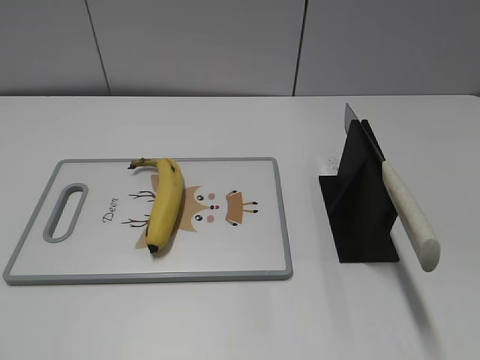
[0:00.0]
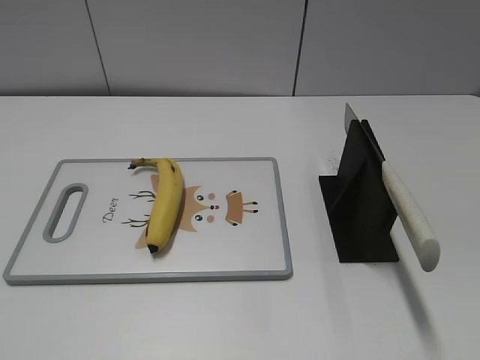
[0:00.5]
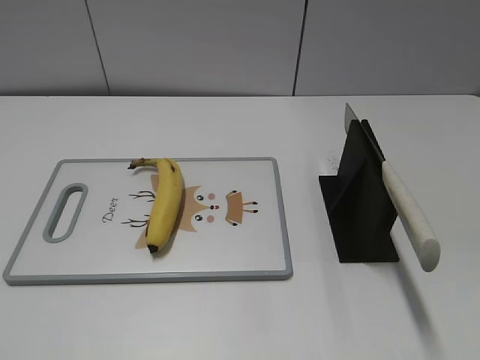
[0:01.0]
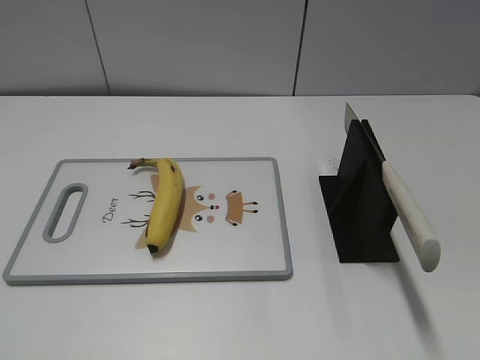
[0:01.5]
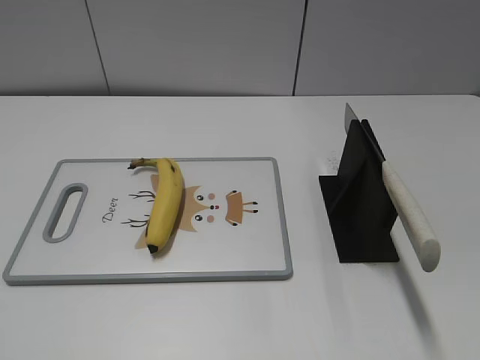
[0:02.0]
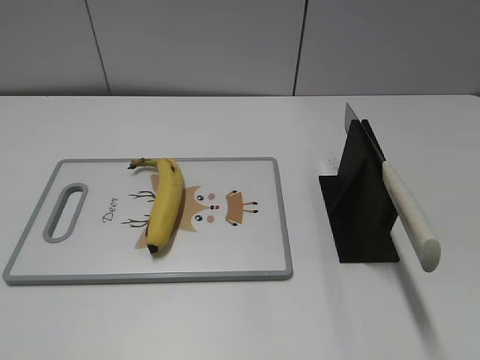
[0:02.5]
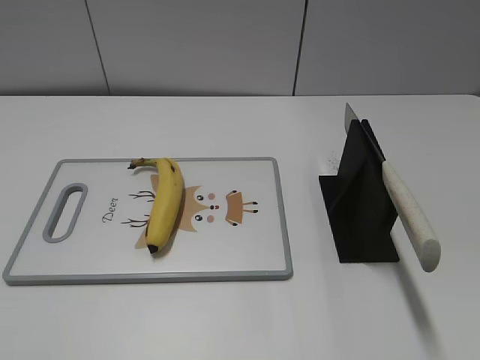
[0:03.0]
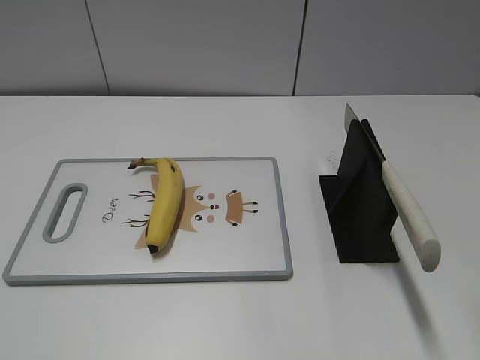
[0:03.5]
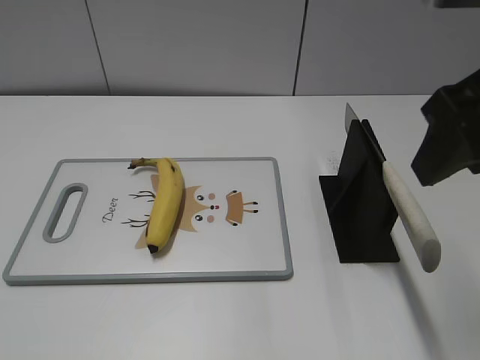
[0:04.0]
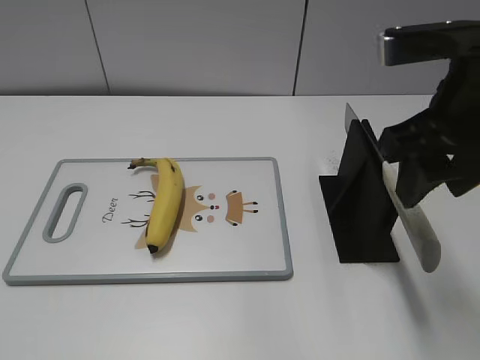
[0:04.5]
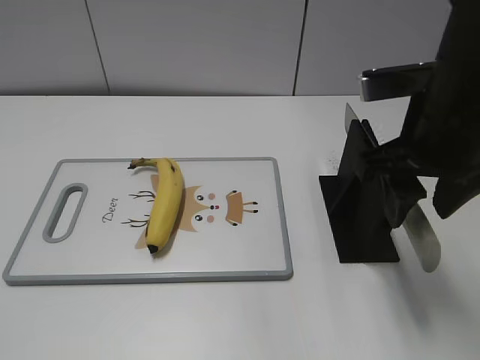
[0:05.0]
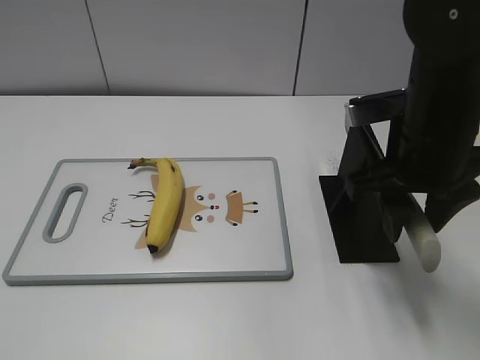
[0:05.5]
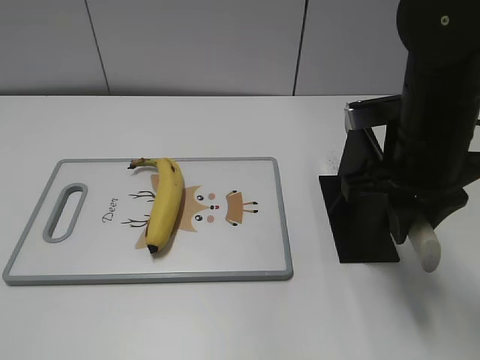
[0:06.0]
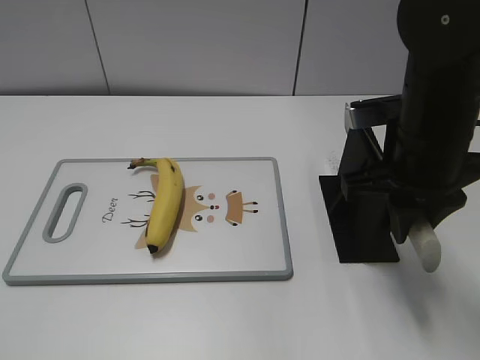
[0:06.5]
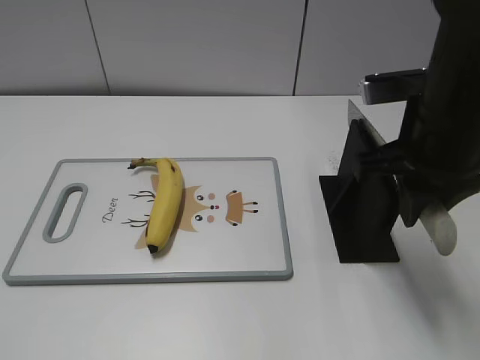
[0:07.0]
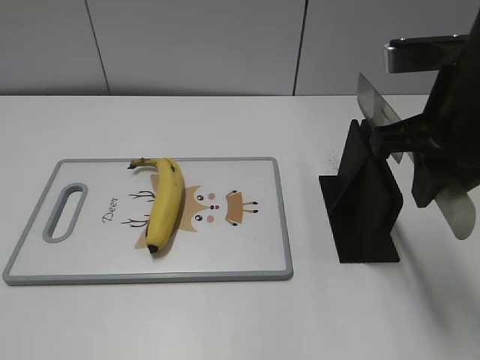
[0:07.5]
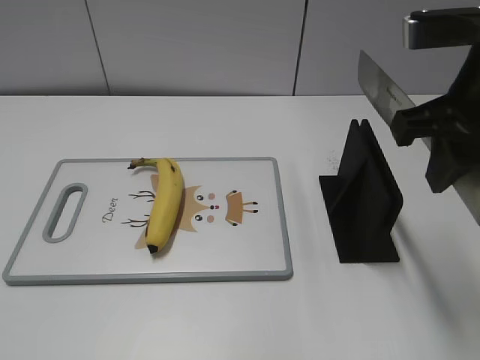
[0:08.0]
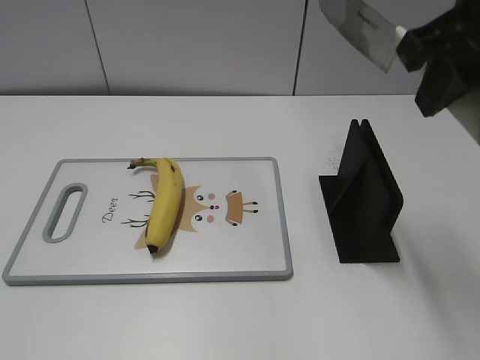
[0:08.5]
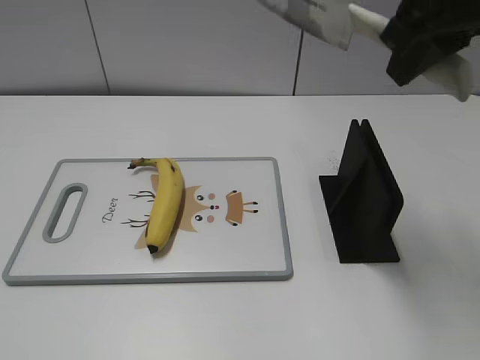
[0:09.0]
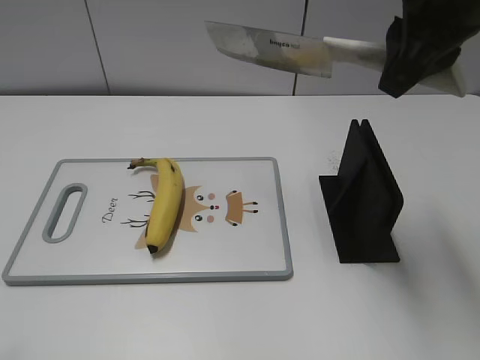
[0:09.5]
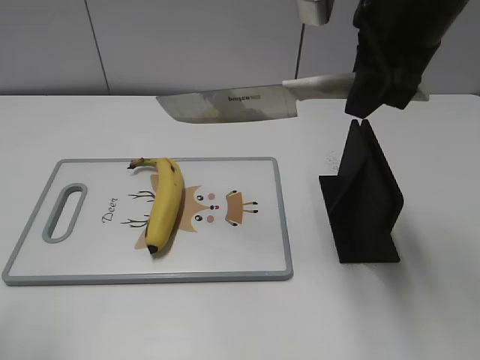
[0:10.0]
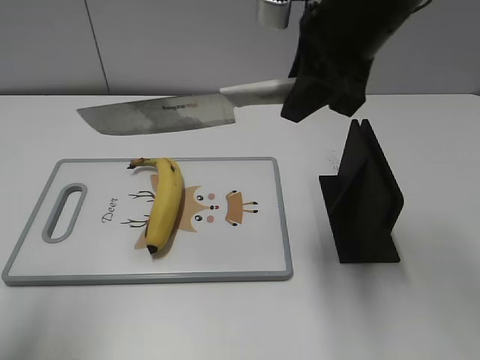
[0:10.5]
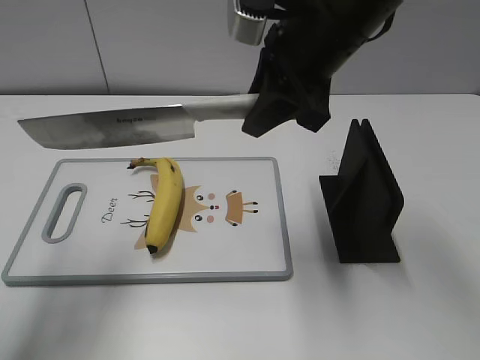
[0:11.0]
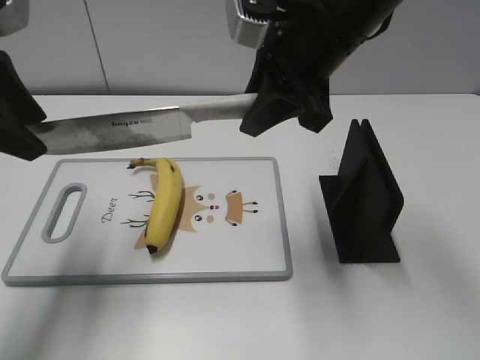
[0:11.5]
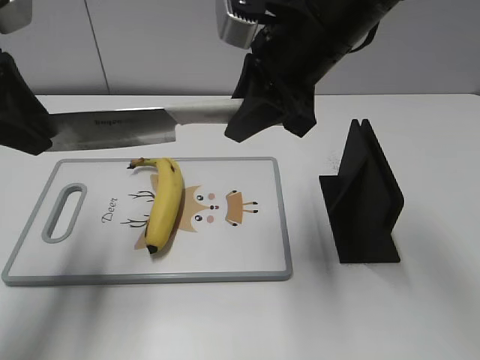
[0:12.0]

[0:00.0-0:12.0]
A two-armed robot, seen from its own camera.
Task of the whole recording: cut banana.
Step, 0:00.0 to 0:07.0: Grab the knife handle with your right hand.
0:02.0 to 0:04.0: The right gripper shifts approximately 20 cm forward and to the left.
0:04.0 to 0:06.0: The right gripper goes some 15 cm downward and forward, and closes.
0:06.0 to 0:08.0: The right gripper moves upward, roughly 10 cm.
0:08.0 to 0:10.0: The left gripper moves forward and upward, about 15 cm. The right gripper is displaced forward by approximately 5 cm.
0:10.0 to 0:12.0: The right gripper moves to the left, approximately 5 cm, while the left gripper goes approximately 15 cm forward.

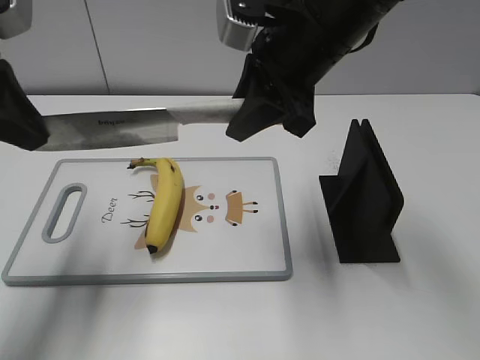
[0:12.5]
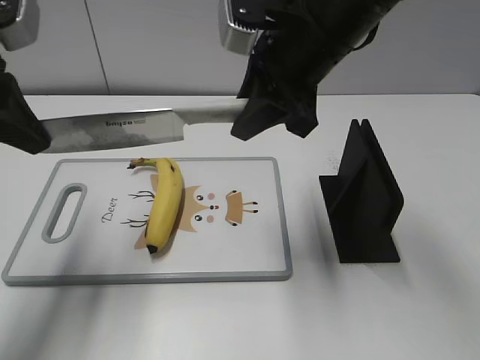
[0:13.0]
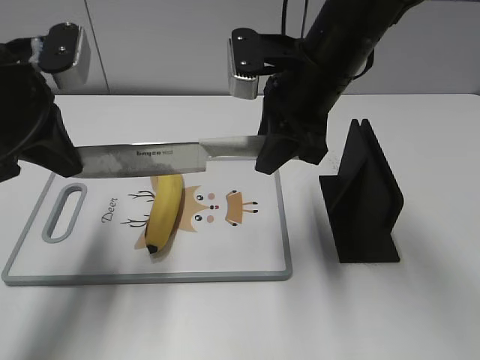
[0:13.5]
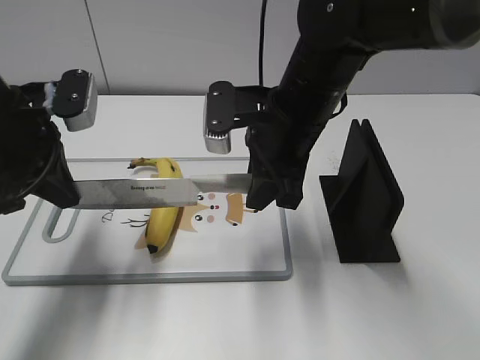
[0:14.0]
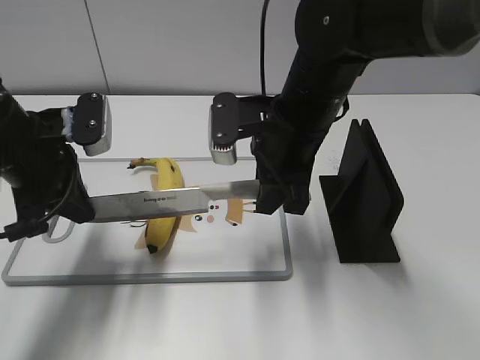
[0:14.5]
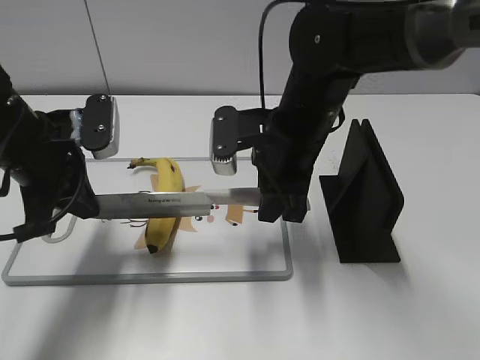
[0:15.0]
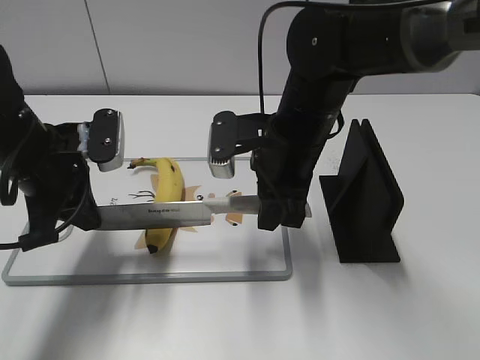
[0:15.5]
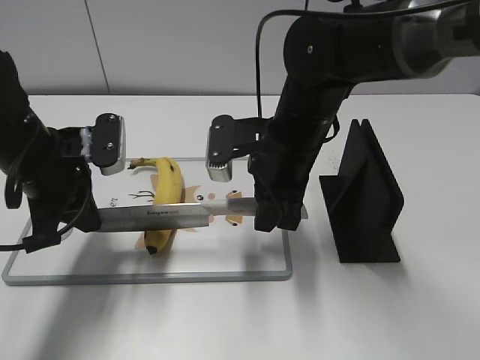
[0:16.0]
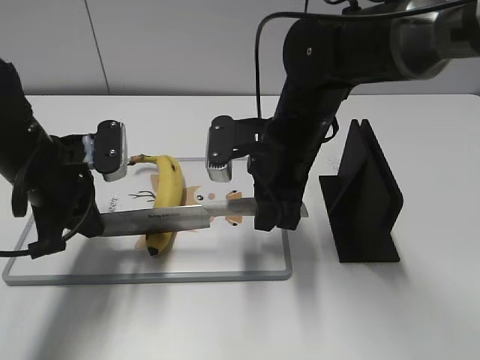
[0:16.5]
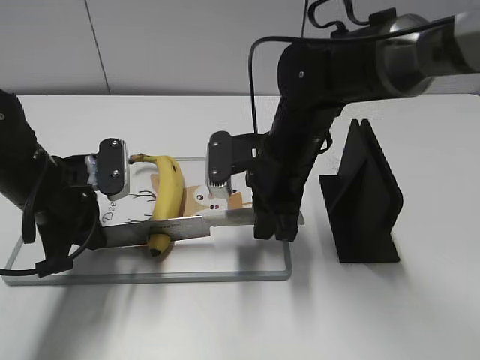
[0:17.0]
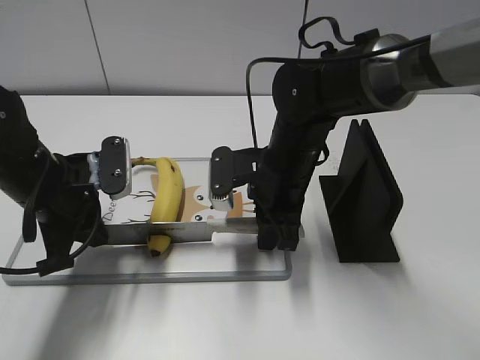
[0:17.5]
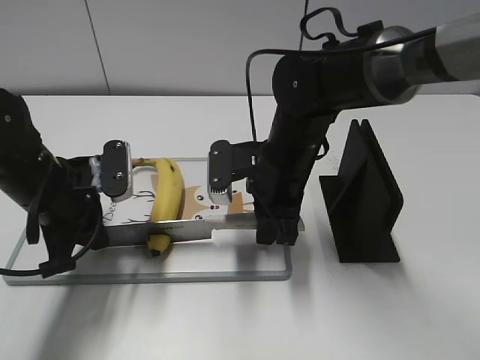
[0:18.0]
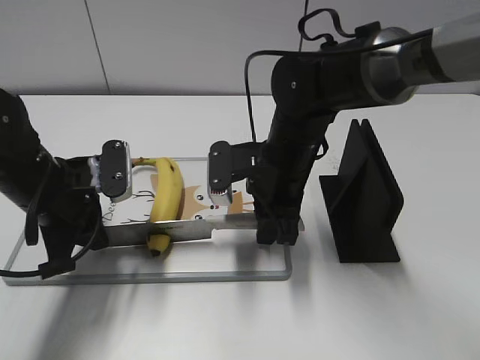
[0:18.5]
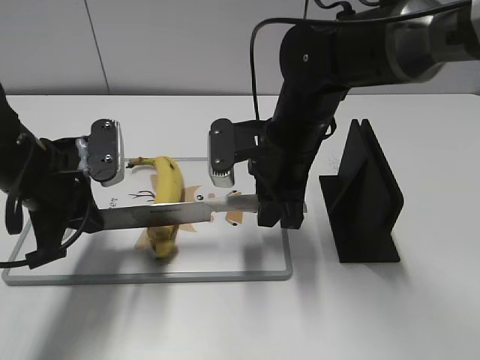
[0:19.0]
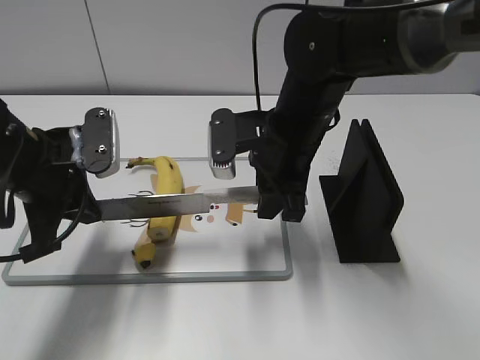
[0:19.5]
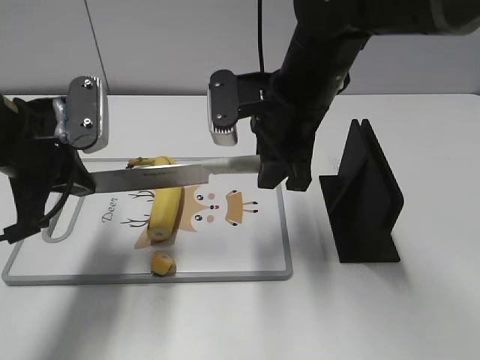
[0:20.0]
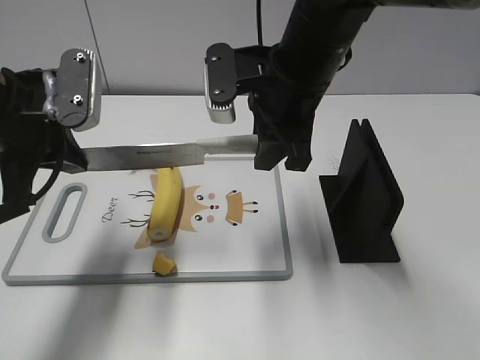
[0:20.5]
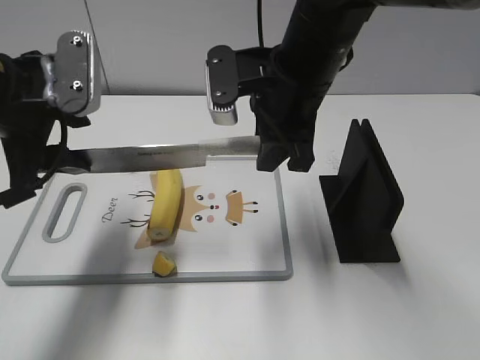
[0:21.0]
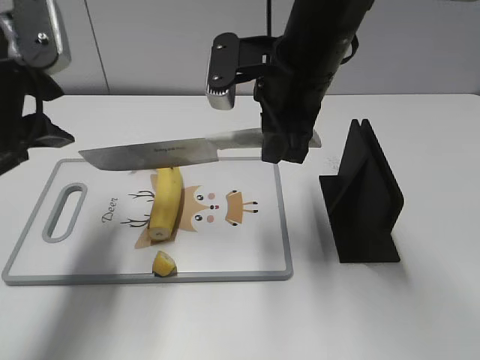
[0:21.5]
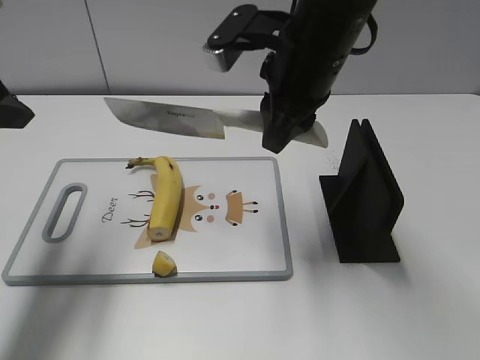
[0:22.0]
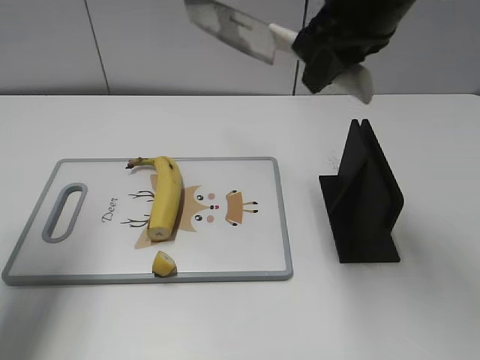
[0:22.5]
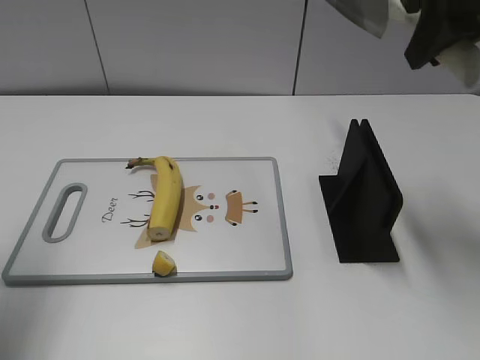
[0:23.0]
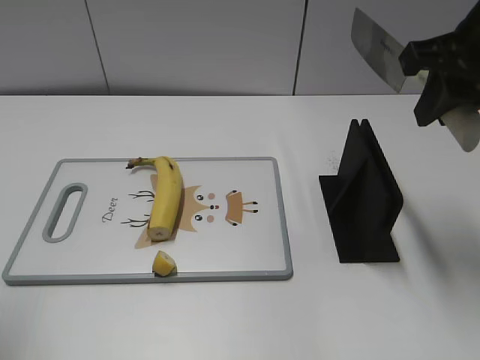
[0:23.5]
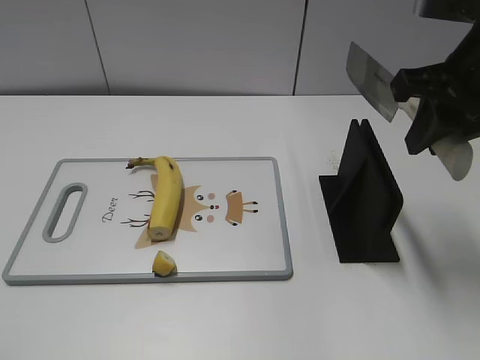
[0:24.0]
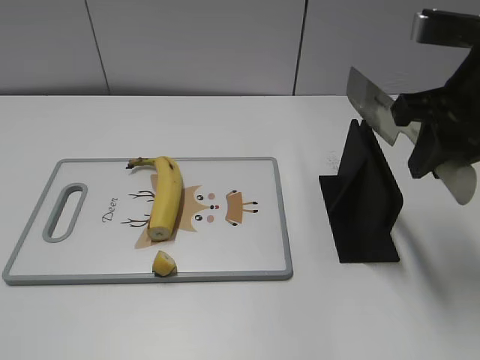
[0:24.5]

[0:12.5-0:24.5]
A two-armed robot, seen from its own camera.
Task of the whole recording: cut banana.
Step, 0:12.5 to 0:15.0: Lift the knife with your right hand.
Step, 0:16.0 to 0:22.5: Cut the banana with your right hand.
0:12.5 to 0:14.5: The two grippers go some 10 cm downward.
0:14.5 to 0:16.5: The grippers stay close to where they were, moving slightly.
0:16.5 to 0:18.5: The grippers move only a little.
0:18.5 to 0:20.5: Both grippers travel together upward, approximately 10 cm.
0:20.5 to 0:22.5: The left gripper travels upward and to the left by approximately 10 cm, and opens its fingers; the right gripper goes some 10 cm upward and to the right.
0:22.5 to 0:24.5: The right gripper travels to the right, downward and backward by about 10 cm. Meanwhile the left gripper goes roughly 25 cm backward.

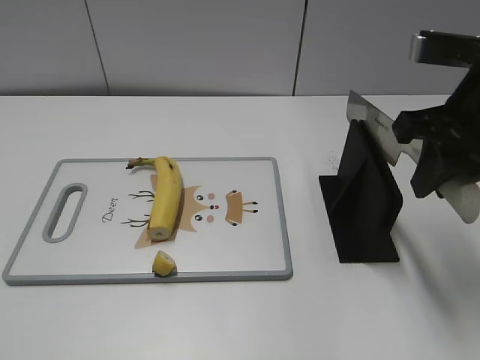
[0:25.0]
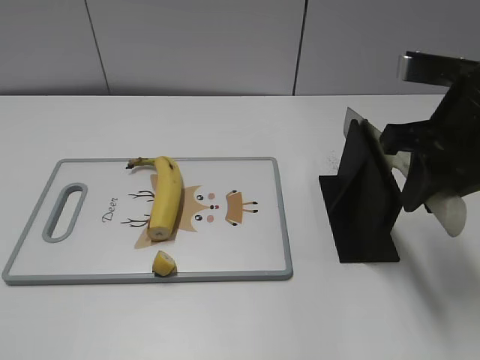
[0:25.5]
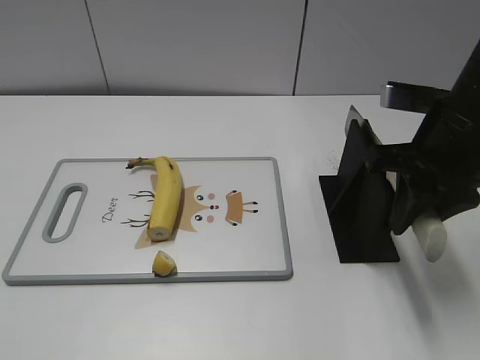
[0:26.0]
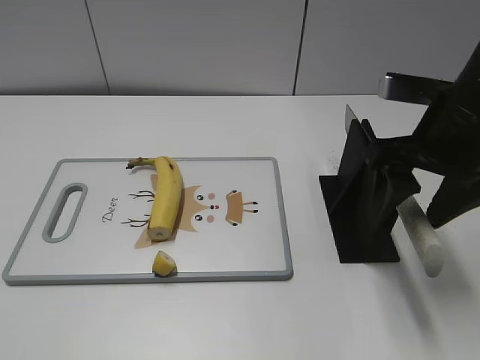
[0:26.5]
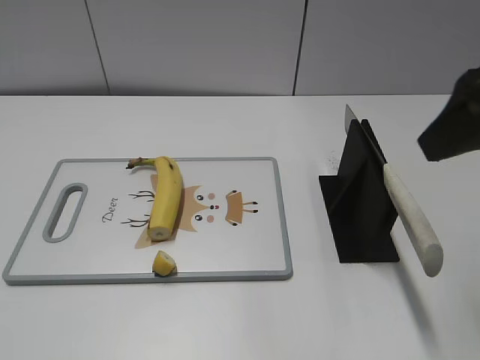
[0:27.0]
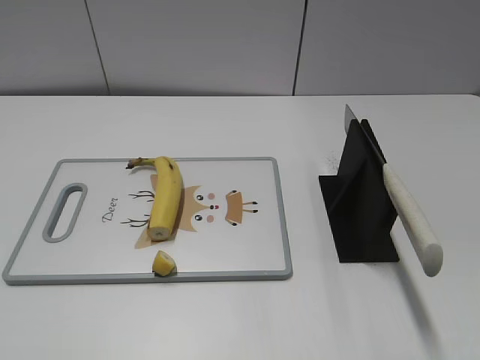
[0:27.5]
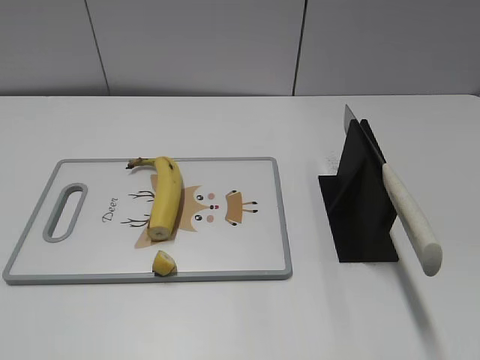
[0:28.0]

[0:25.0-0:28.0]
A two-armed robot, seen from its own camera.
Task of the whole recording: cut banana.
0:25.0 to 0:26.5: The right gripper opens up.
0:26.5 to 0:28.0: The right gripper shifts about 20 cm backward.
